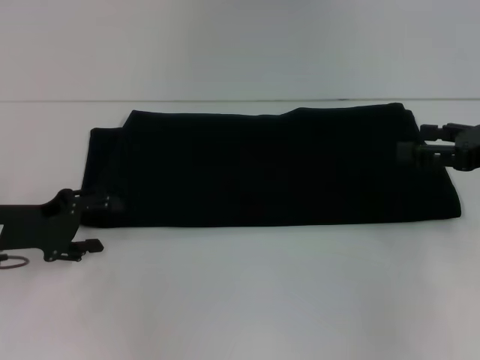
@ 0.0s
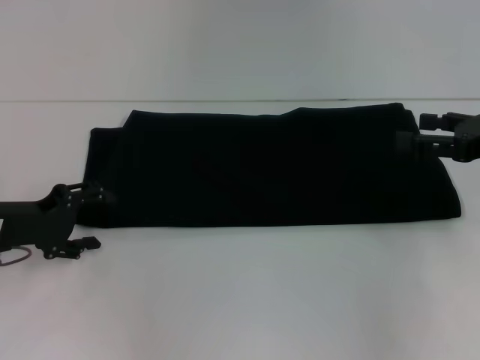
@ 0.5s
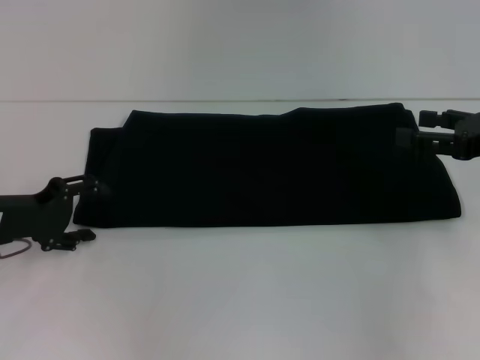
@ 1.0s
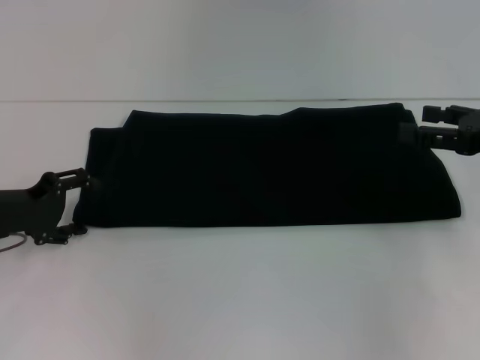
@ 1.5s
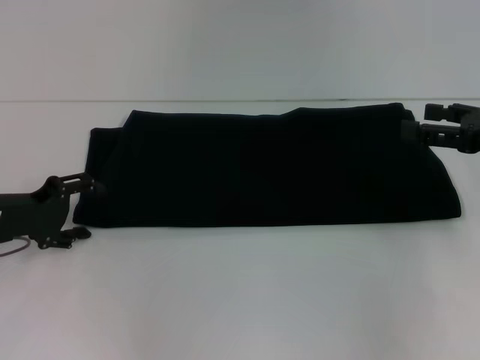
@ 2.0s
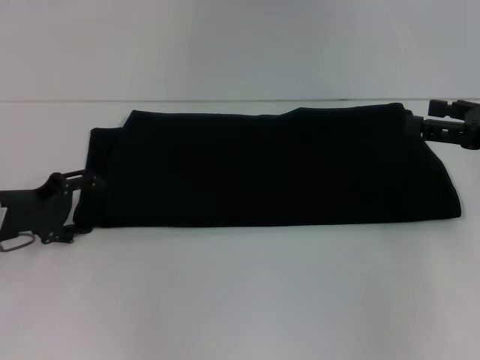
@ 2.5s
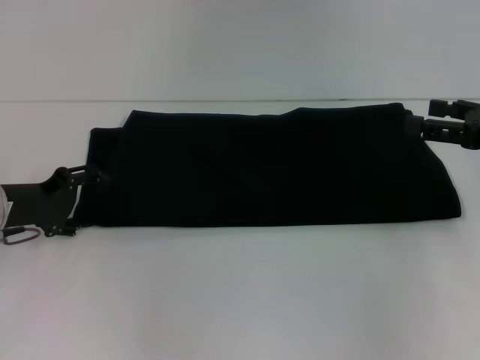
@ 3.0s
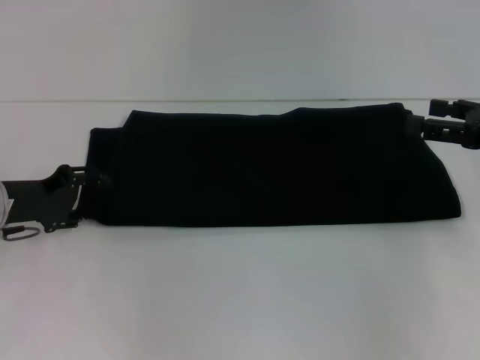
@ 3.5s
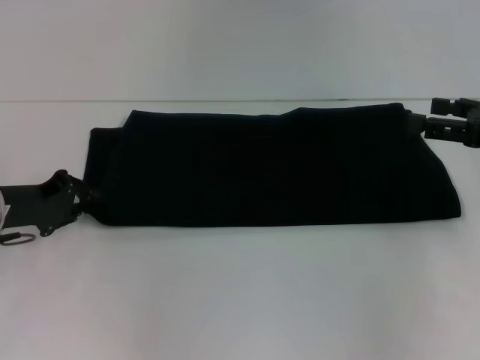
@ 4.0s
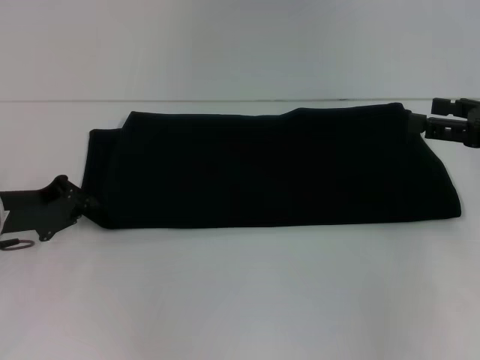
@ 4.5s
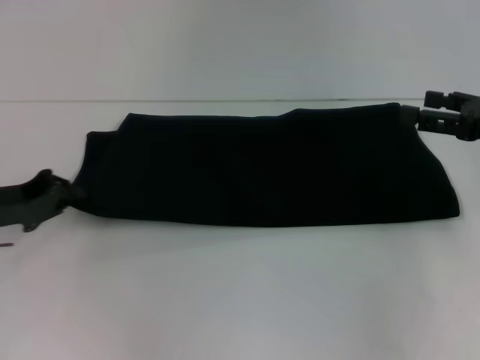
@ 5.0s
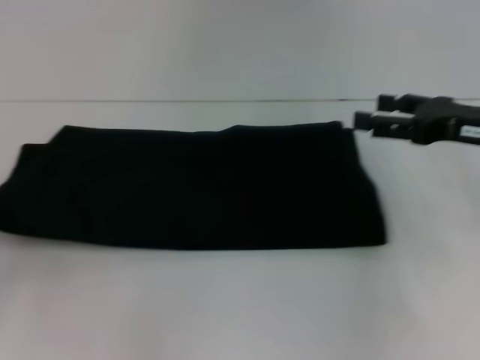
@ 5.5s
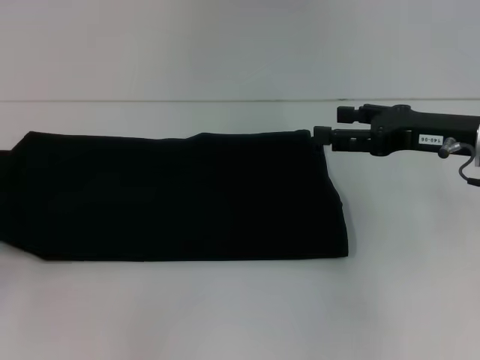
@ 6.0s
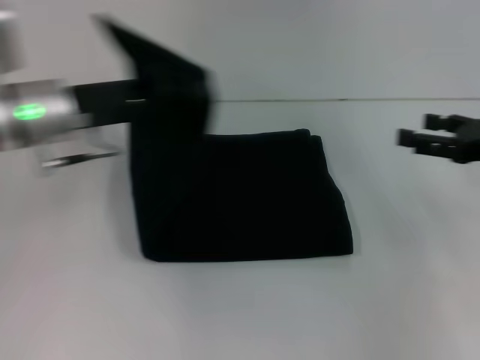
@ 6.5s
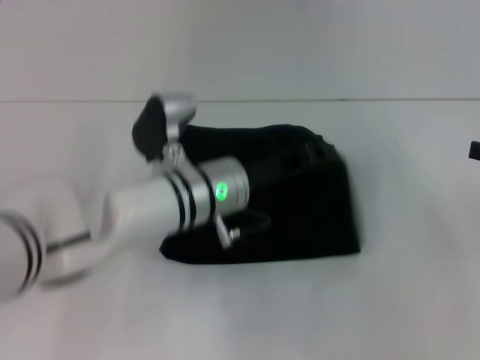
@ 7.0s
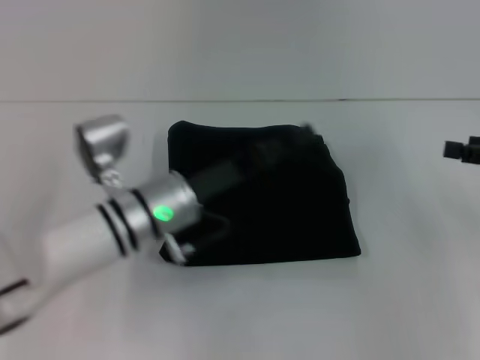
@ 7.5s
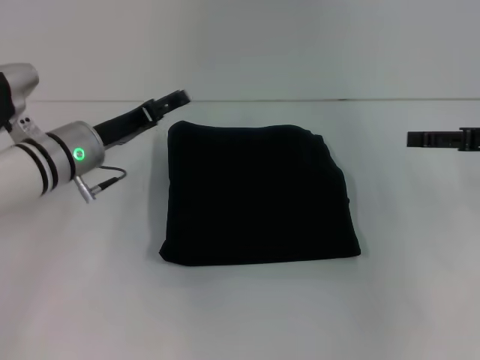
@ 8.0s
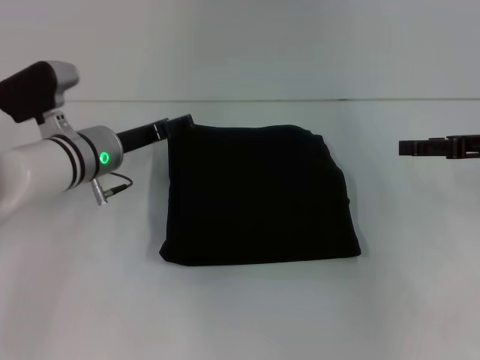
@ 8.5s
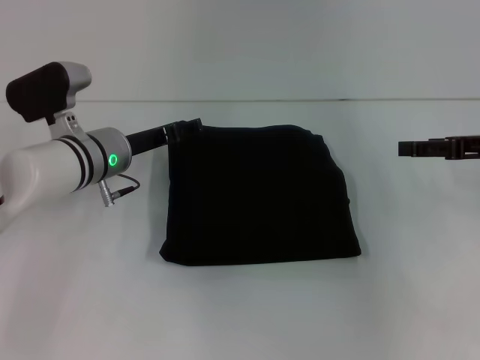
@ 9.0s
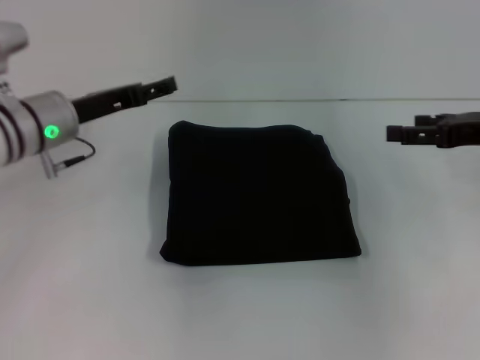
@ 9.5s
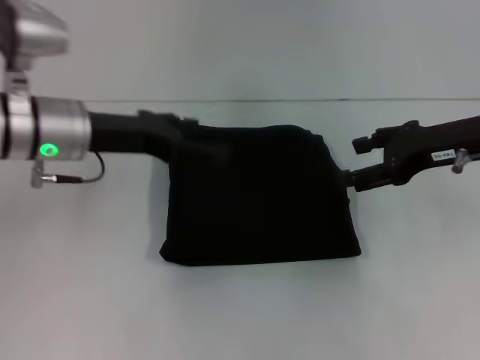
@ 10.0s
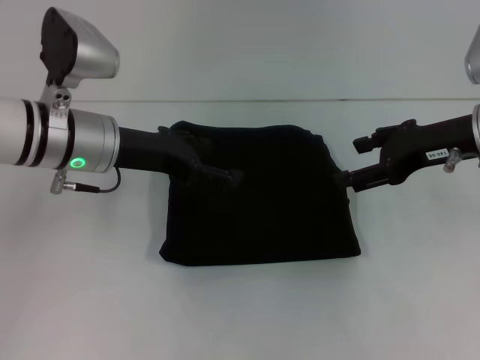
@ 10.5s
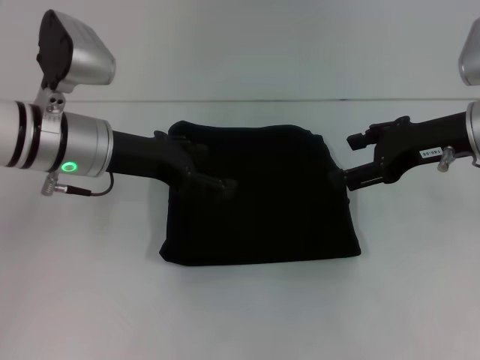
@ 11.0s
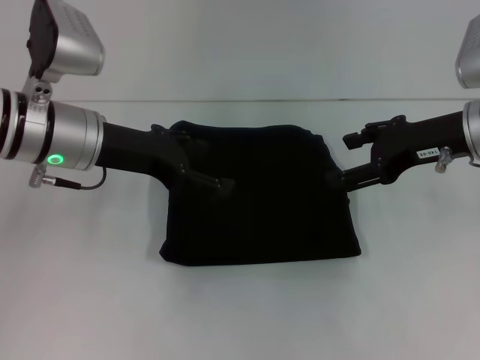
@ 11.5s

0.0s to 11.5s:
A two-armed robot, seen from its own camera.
Step, 0.0s to 7.0s: Fold the clothes with your left hand.
0.0s to 2.0s: The grippers move only a little.
2.0s to 4.0s: The left gripper closes its fingers.
4.0s to 6.0s: The right gripper is displaced to the left by some 10 cm, while the left gripper is displaced to the left and backward by some 15 cm.
6.0s to 7.5s: The right gripper shifts about 10 cm to the right. The left gripper shifts approximately 30 cm to the right.
7.5s to 9.5s: The left gripper is displaced to the left, forward and upward by roughly 15 cm, and opens up. Meanwhile the right gripper heads to the left, covering roughly 5 cm.
9.5s to 11.5s: The right gripper moves to the left, approximately 5 cm, while the left gripper shifts by approximately 5 cm.

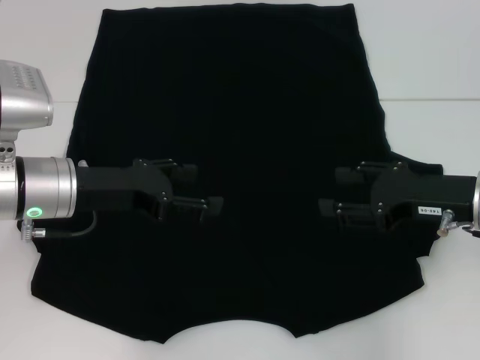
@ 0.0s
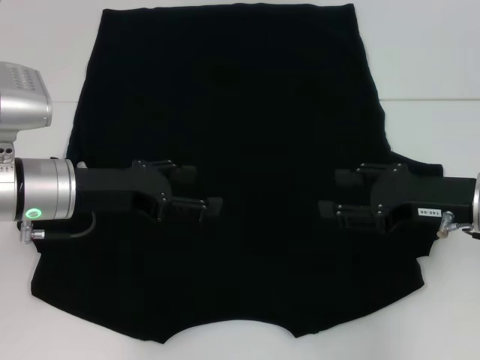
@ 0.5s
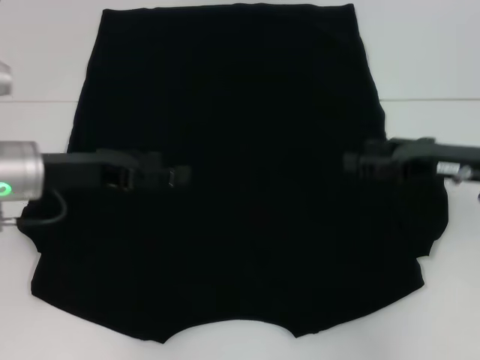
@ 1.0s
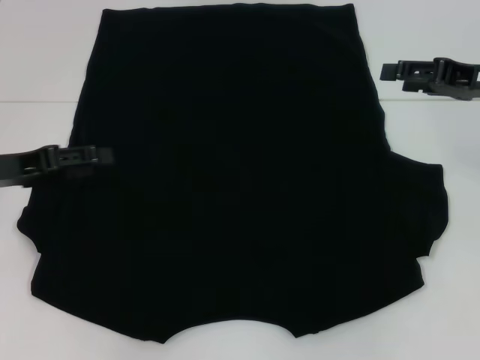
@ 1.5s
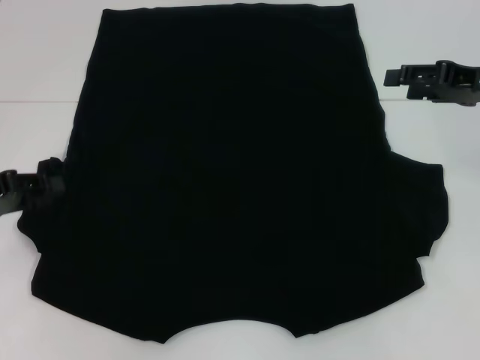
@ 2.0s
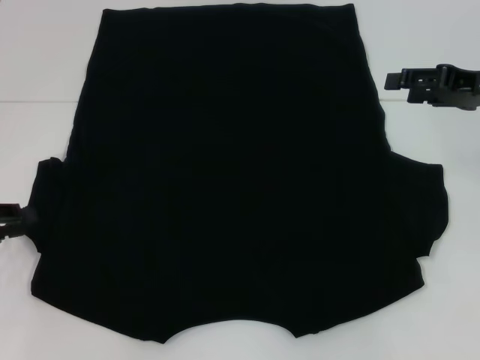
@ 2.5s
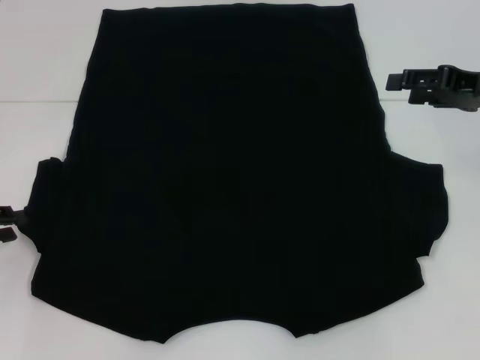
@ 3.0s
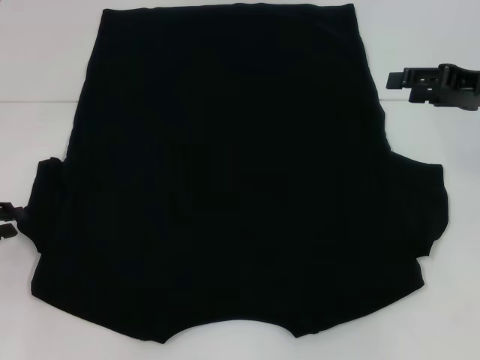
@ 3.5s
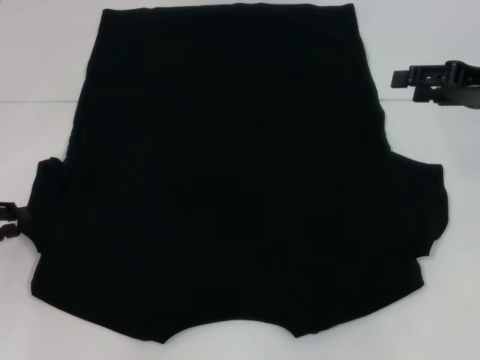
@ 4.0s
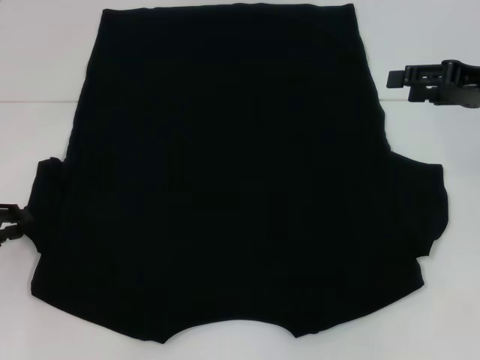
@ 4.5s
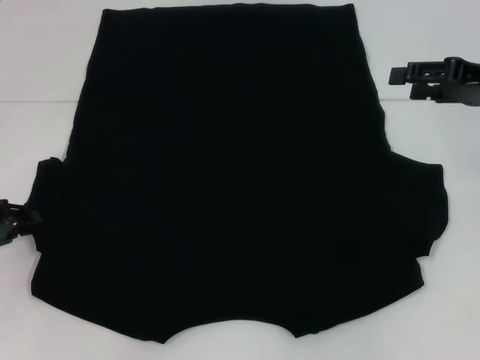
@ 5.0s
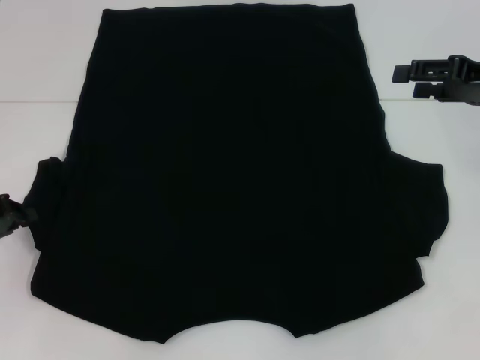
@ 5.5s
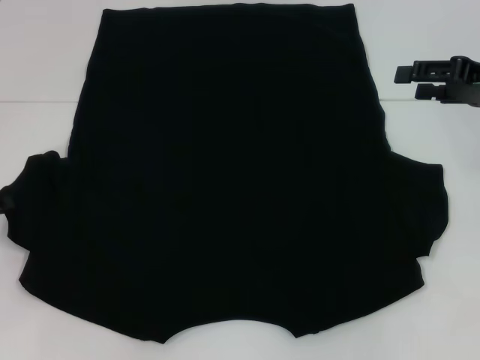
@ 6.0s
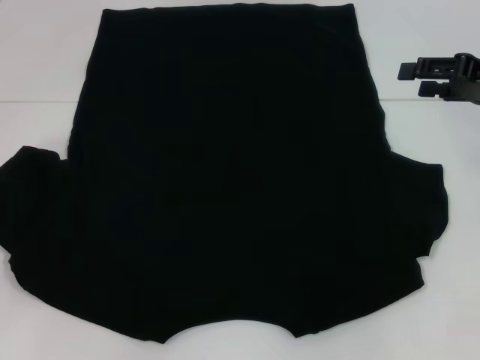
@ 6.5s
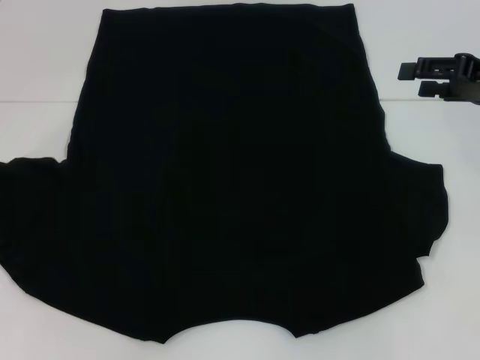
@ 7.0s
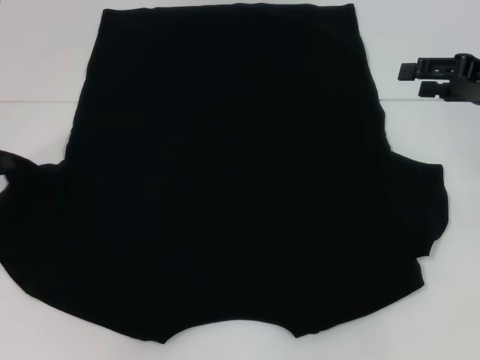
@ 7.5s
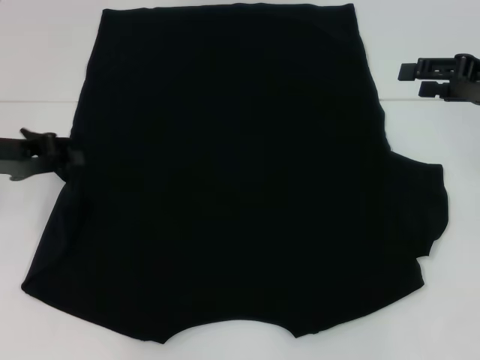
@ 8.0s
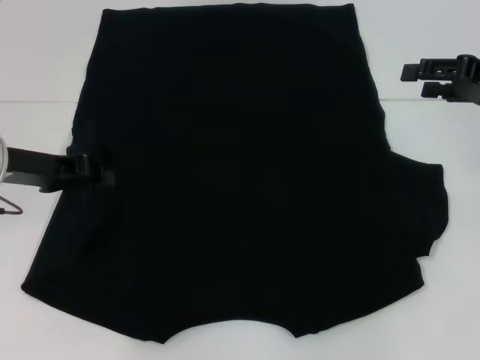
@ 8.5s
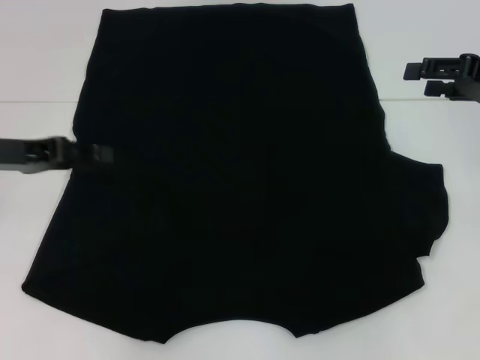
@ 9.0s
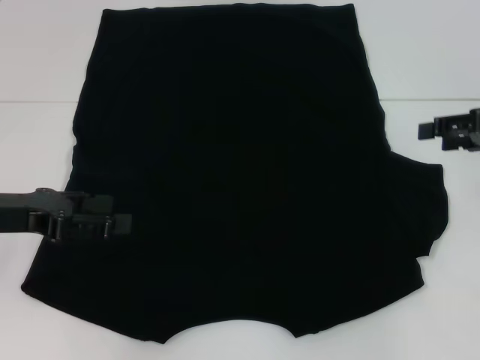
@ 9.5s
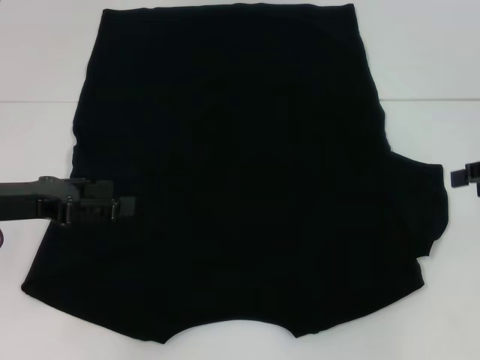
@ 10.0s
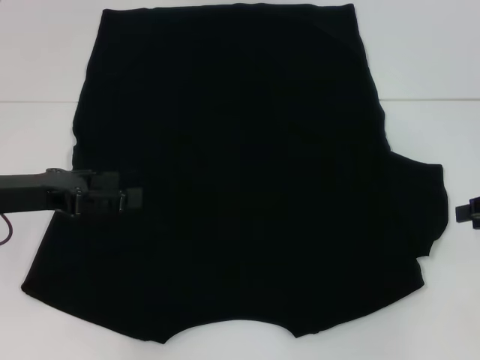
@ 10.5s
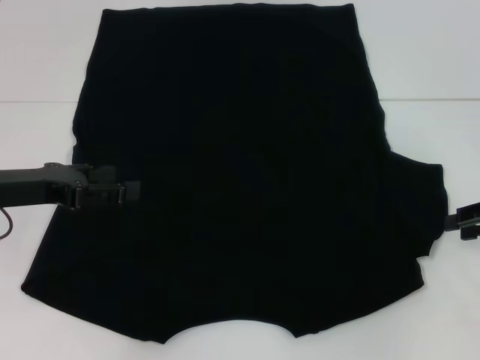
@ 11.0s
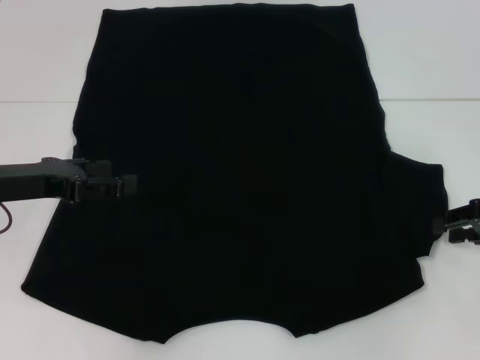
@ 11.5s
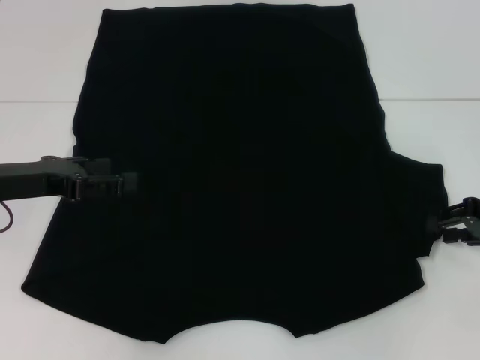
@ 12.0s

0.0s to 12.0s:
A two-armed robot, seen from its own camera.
Step, 0.0s to 9.0s: Fold the bottom left sleeve with your left hand.
0.0s to 2.0s: The right gripper moves upward and forward, about 10 cm, while the left gripper goes roughly 15 cm to the left, and closes its fingers.
2.0s to 4.0s: The left gripper changes place by about 5 cm.
4.0s to 6.0s: The left gripper closes its fingers.
6.0s to 8.0s: The left gripper is displaced to the right, upward and forward by roughly 10 cm.
8.0s to 10.0s: The left gripper shifts about 5 cm backward, and opens up. The right gripper changes place by about 5 cm.
10.0s to 12.0s: The right gripper shifts about 10 cm downward.

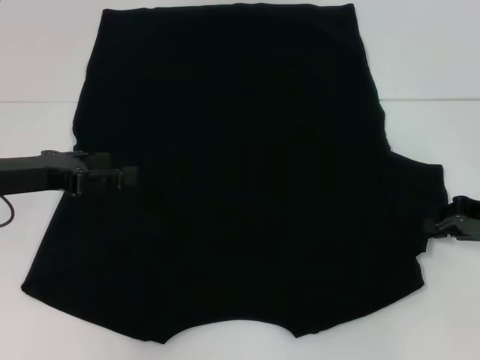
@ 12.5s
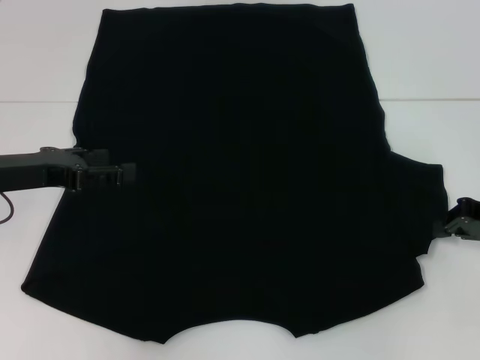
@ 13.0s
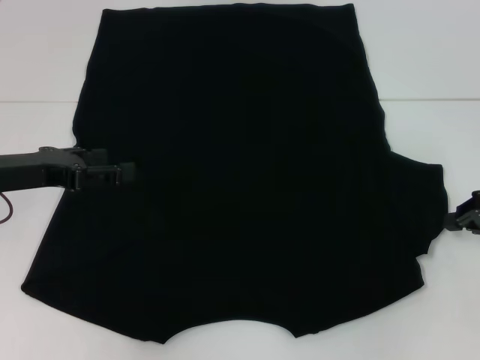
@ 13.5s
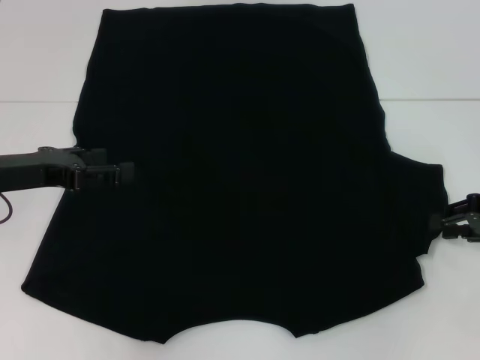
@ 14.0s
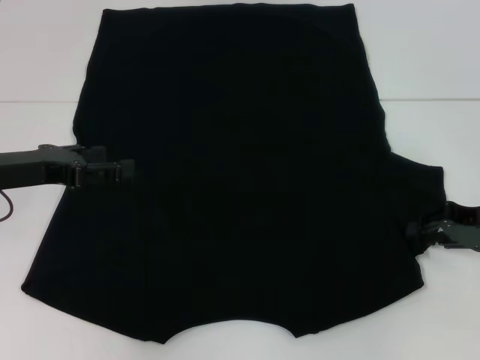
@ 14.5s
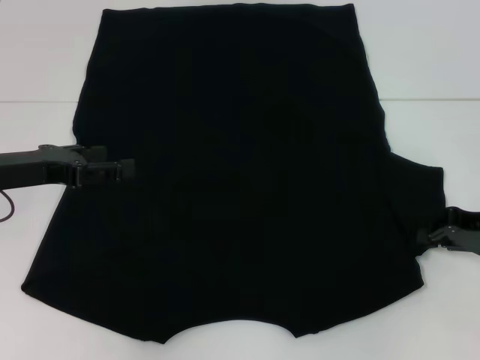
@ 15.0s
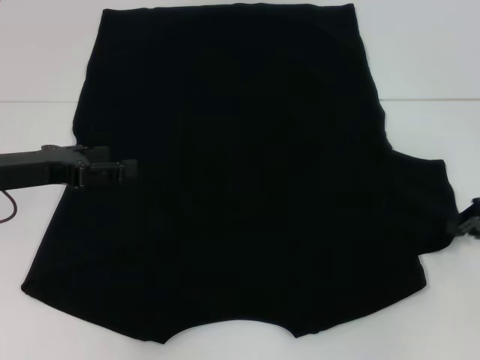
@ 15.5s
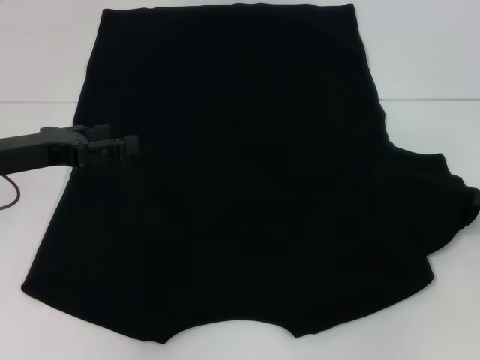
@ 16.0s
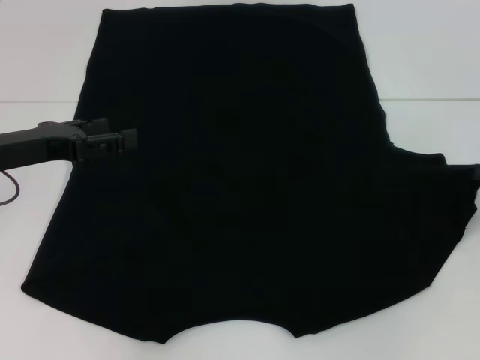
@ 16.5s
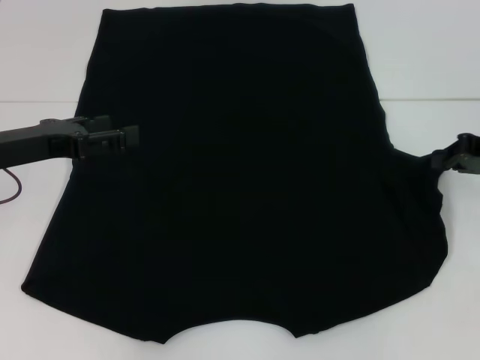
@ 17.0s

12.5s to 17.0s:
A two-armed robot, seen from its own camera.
12.5s to 14.5s: The grippers make only small movements.
14.5s to 17.0s: The right gripper is displaced upward by about 5 cm, and closes.
